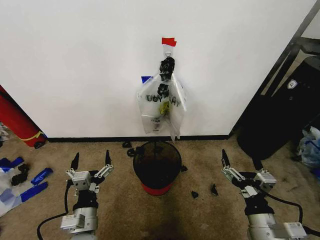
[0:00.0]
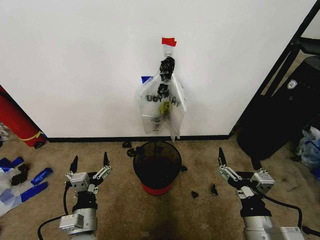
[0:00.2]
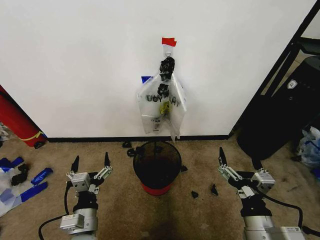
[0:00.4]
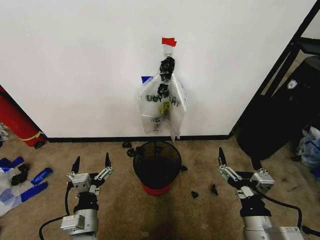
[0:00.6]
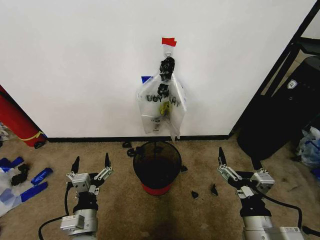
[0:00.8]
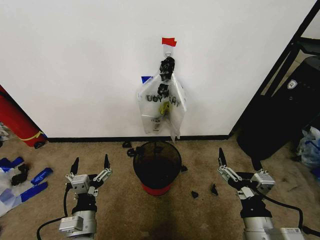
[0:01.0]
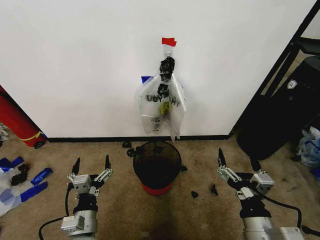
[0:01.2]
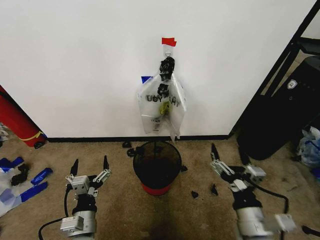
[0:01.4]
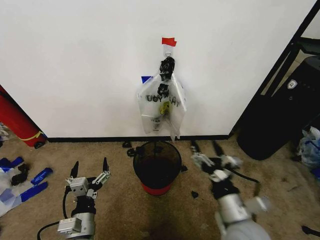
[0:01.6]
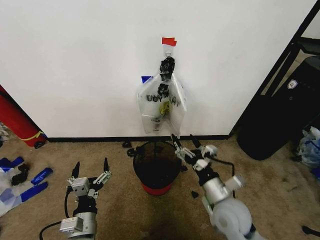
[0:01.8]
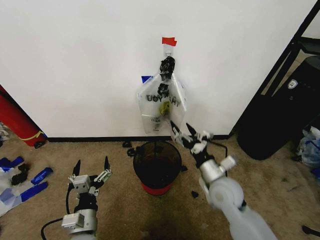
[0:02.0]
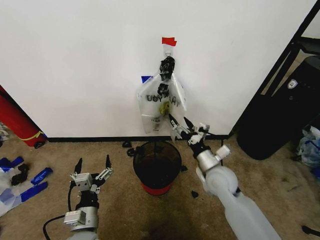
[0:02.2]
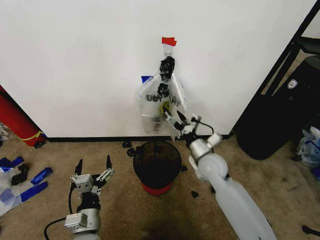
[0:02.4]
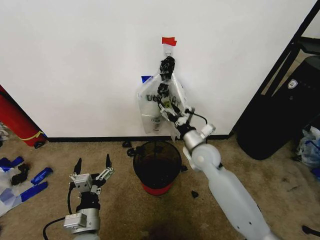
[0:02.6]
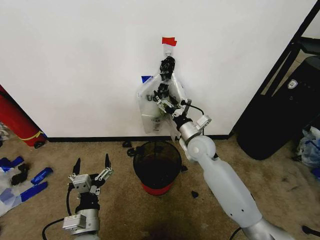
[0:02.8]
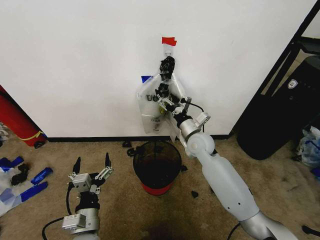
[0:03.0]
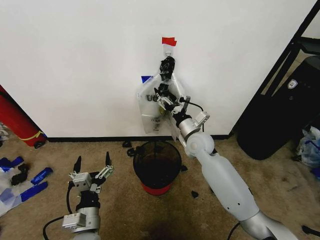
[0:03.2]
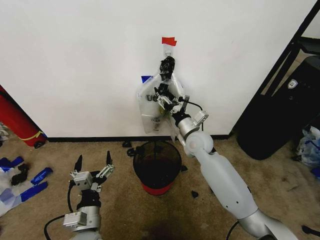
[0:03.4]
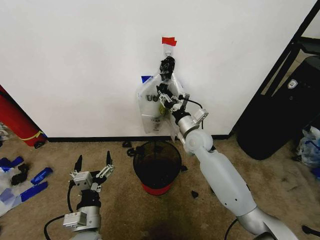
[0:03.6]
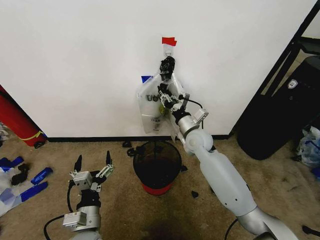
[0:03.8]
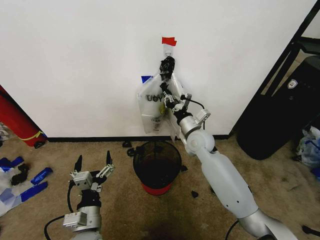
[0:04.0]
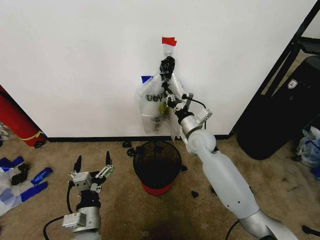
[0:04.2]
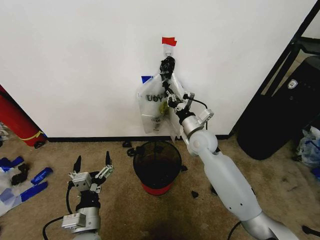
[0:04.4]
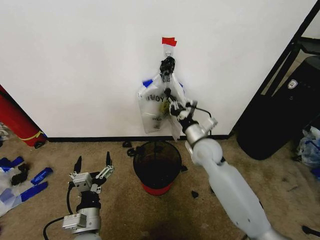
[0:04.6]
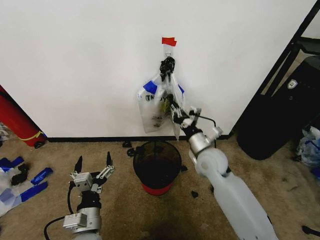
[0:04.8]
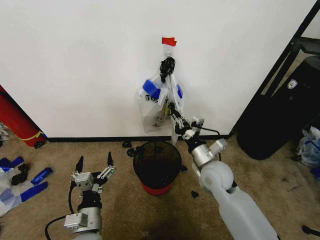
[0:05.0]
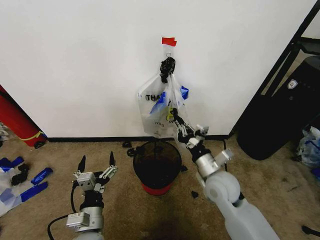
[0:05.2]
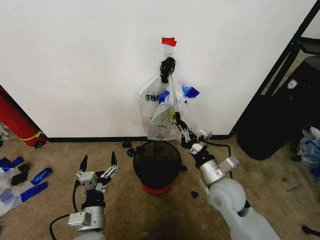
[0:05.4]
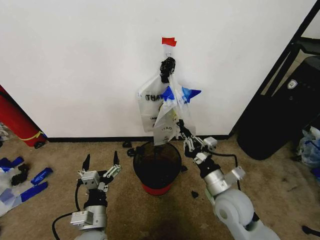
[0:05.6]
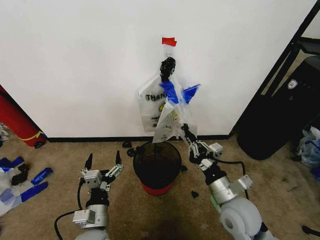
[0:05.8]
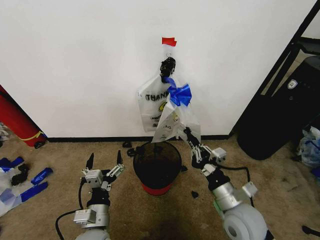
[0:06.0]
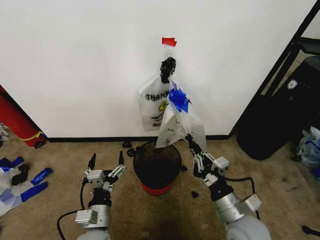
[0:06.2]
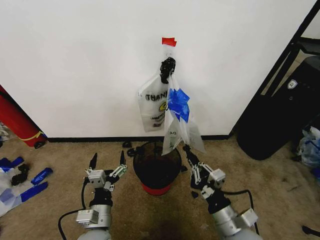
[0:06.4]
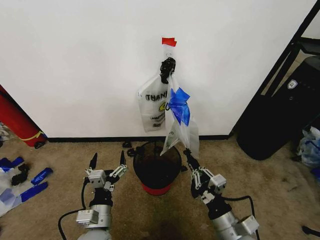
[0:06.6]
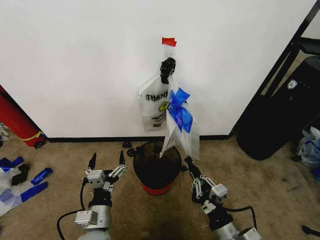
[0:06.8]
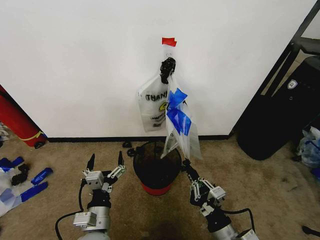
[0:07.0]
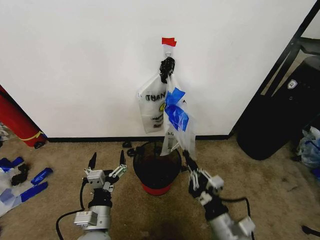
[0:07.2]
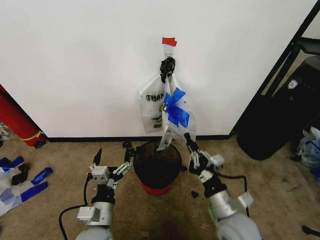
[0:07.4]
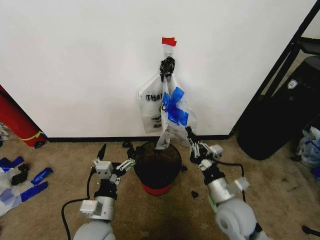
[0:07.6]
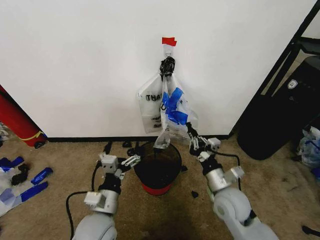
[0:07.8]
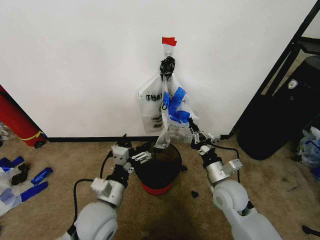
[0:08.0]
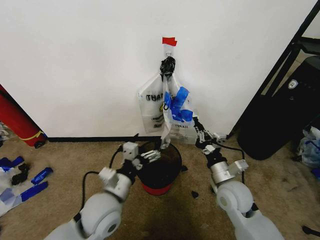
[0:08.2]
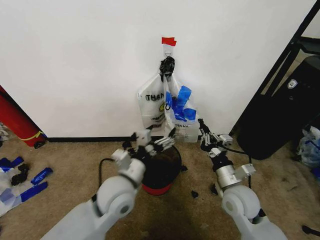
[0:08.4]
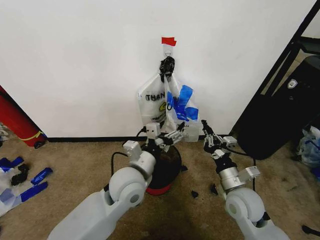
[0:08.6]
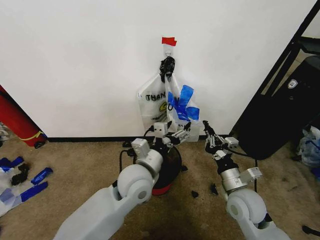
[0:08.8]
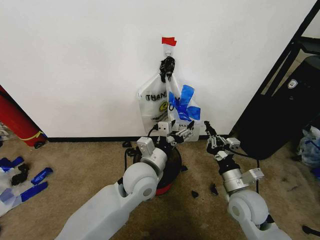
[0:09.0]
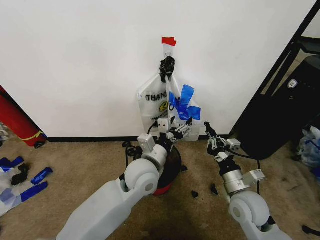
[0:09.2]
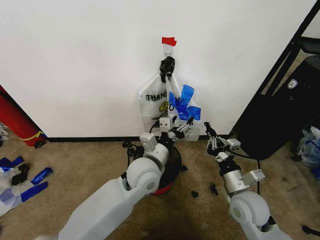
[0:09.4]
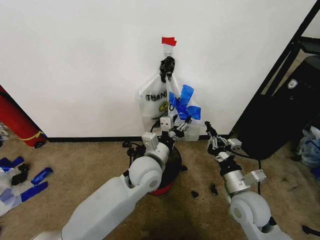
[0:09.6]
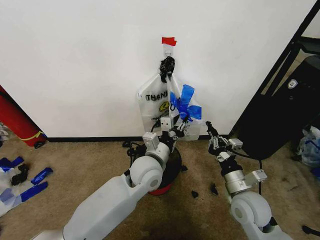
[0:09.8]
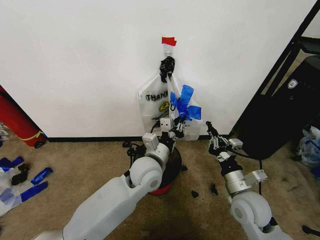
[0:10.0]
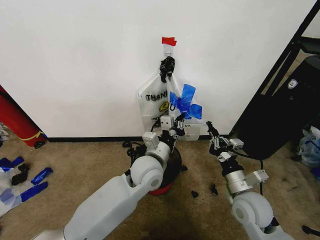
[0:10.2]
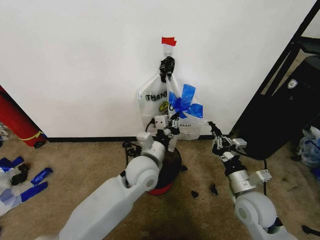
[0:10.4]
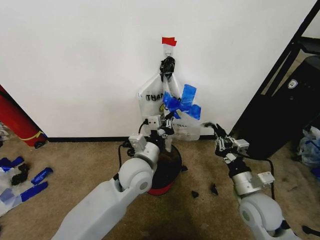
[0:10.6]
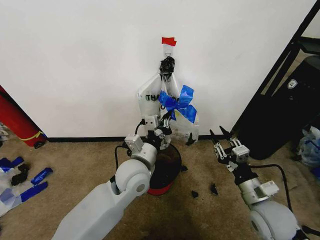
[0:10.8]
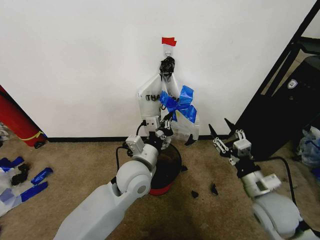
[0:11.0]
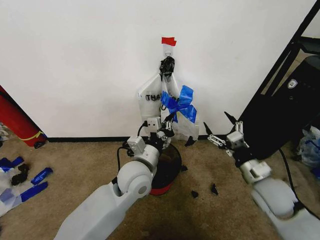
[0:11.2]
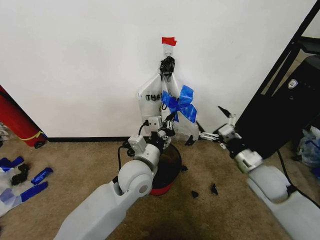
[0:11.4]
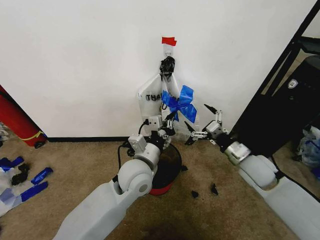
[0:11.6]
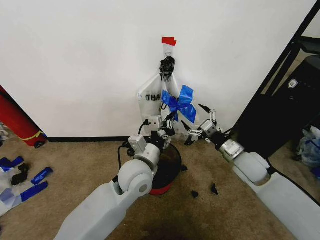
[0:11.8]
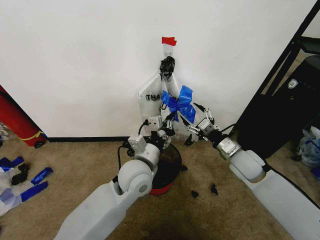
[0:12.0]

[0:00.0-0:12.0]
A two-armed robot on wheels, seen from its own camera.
Task of the whole recording: Pick up the garbage bag from the wall and place it over the trash bin.
0:01.6 to 0:03.0: The right gripper goes about 30 cm forward.
0:03.0 to 0:04.4: The right gripper closes.
0:04.4 to 0:06.0: The right gripper is displaced backward by roughly 25 cm.
0:06.0 to 0:07.6: The right gripper reaches approximately 10 cm backward, then returns.
0:07.6 to 0:09.0: The left gripper heads forward, to the right and upward, covering roughly 20 cm, while the right gripper moves roughly 5 cm.
0:09.0 to 0:10.4: The left gripper closes its fingers.
0:10.4 to 0:12.0: The right gripper is displaced forward by some 15 cm, and opens.

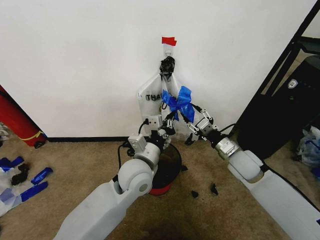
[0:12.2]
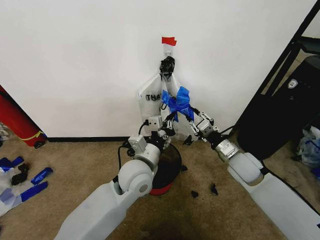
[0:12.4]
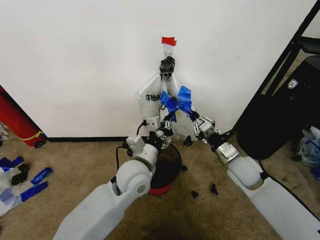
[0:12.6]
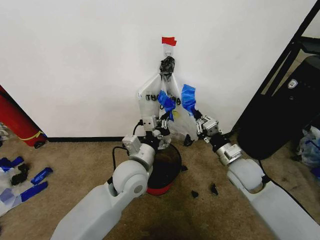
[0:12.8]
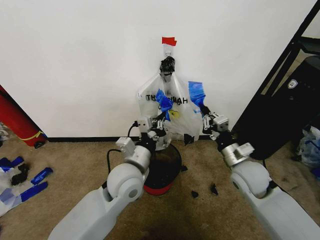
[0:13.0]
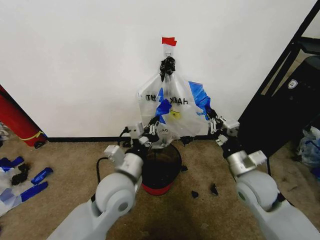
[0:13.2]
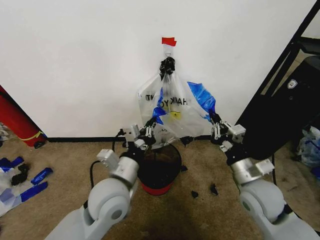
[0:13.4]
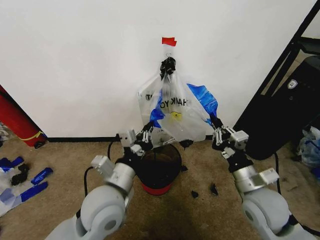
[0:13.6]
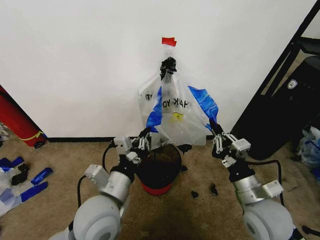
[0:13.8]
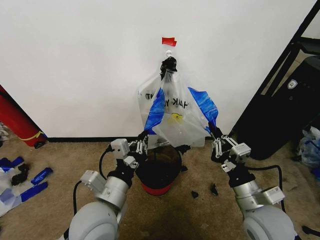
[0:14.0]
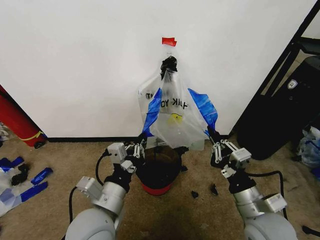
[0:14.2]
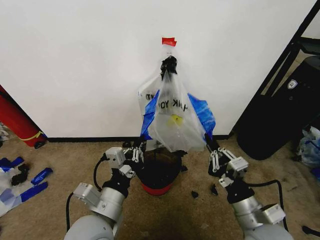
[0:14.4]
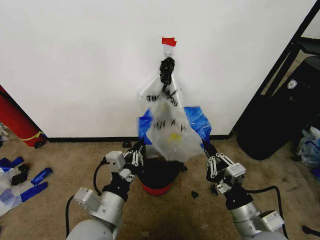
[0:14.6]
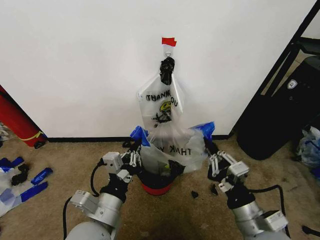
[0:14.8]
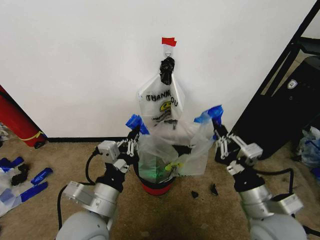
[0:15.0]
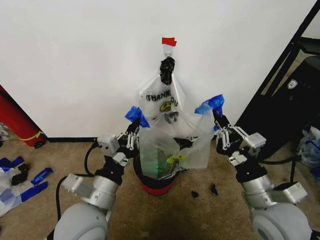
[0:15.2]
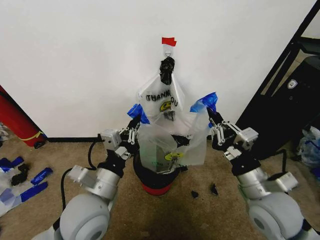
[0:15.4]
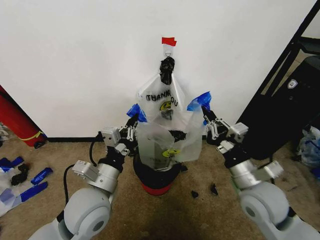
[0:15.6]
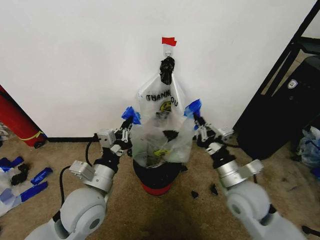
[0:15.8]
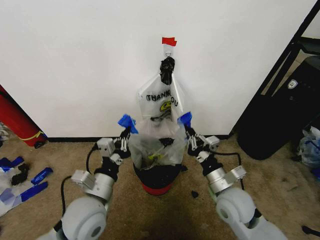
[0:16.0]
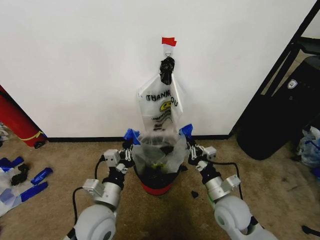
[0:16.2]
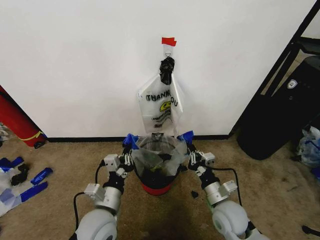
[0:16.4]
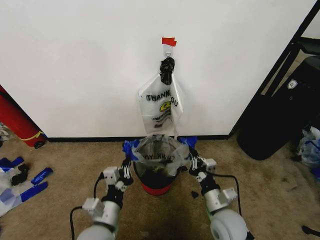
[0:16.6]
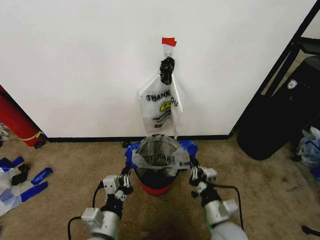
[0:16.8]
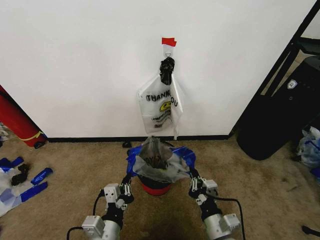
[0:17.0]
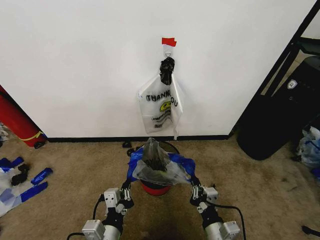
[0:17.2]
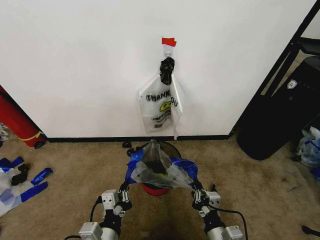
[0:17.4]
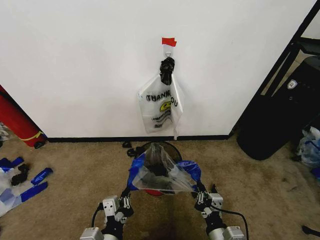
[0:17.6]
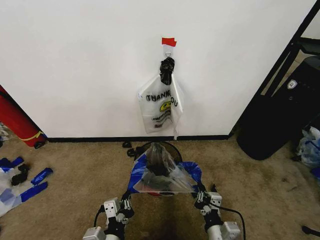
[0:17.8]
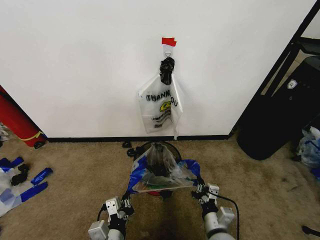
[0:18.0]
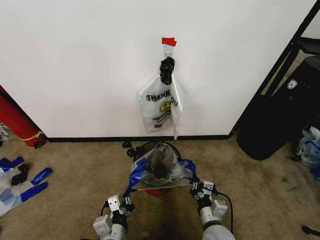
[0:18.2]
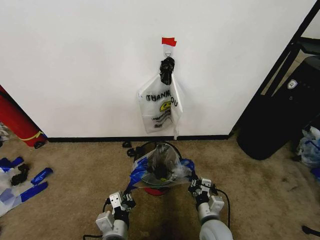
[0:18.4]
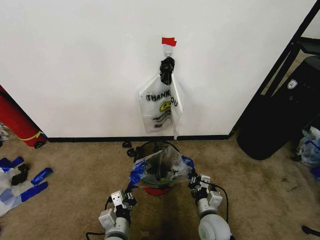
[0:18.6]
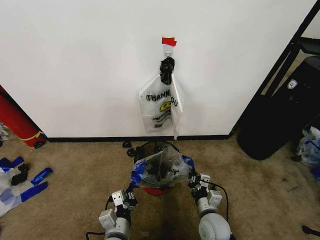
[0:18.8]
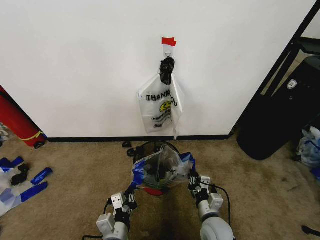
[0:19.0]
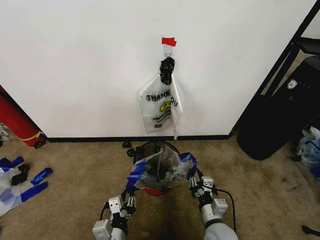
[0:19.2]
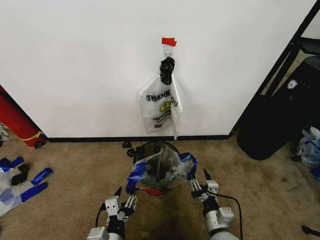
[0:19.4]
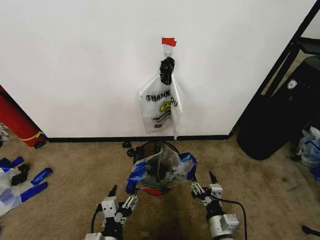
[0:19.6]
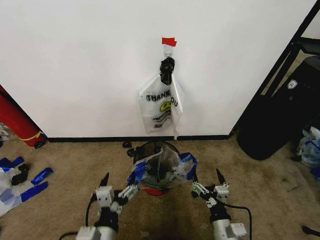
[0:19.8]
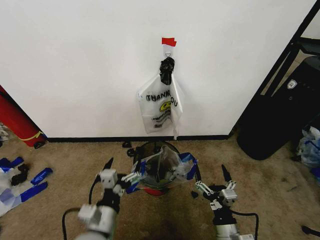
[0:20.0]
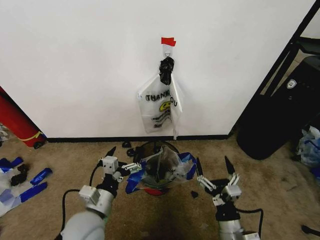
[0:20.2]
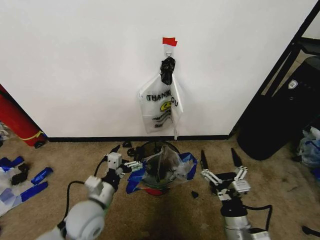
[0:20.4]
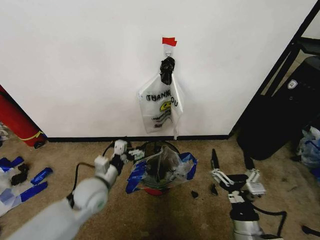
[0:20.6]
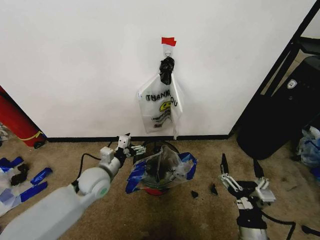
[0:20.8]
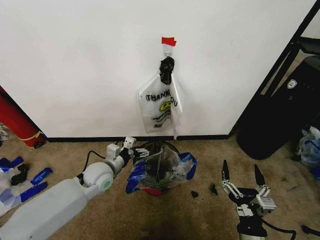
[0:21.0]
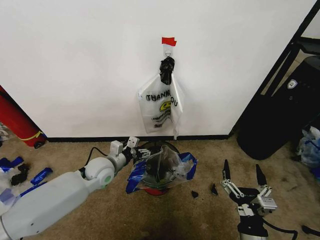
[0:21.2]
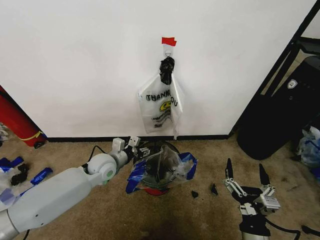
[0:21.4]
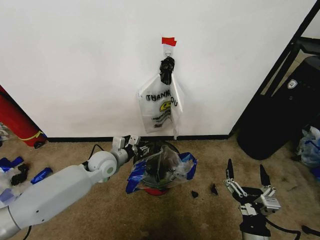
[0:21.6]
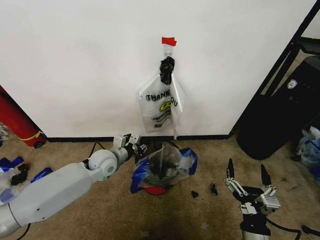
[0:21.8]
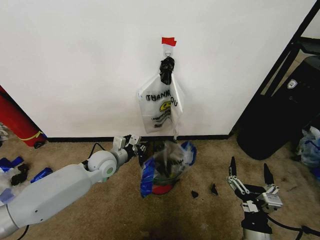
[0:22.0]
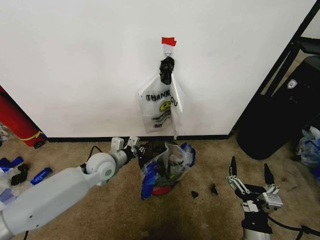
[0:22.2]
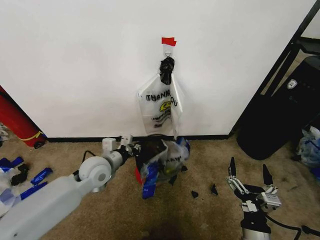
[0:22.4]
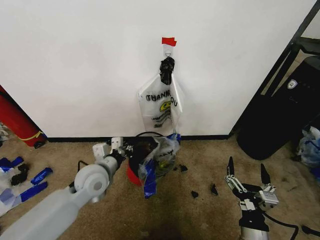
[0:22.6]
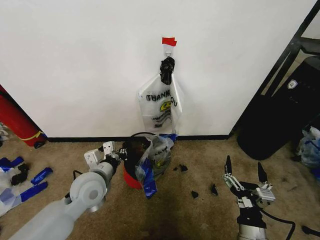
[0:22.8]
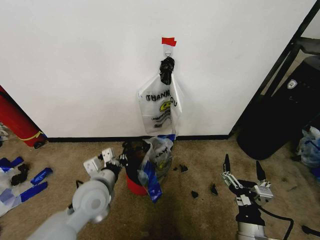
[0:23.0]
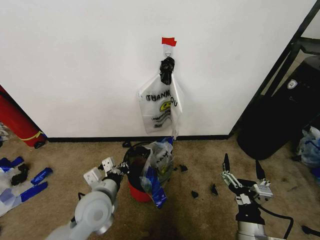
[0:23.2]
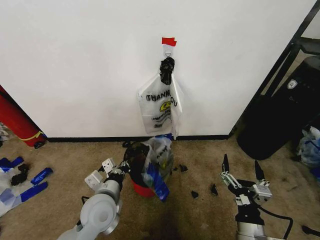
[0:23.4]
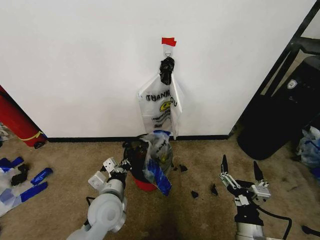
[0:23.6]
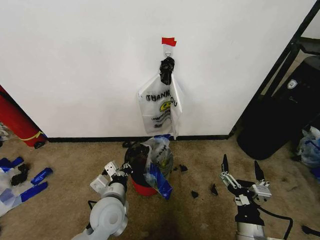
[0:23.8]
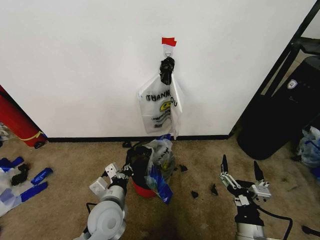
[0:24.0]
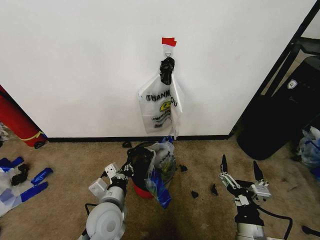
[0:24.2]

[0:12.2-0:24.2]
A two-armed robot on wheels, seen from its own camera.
Task of the whole recording: Pick up the garbage bag from the wall and place it over the trash bin.
0:12.2 to 0:13.8: The right gripper heads backward, covering roughly 15 cm, and closes up. The left gripper is displaced backward and to the left by about 15 cm.
0:15.2 to 0:16.6: The grippers both shift downward by roughly 15 cm.
0:16.6 to 0:18.2: Both grippers travel together downward, about 5 cm. The right gripper travels backward and back again, some 10 cm each way.
0:18.2 to 0:19.8: The left gripper shifts some 5 cm upward, and opens its fingers; the right gripper shifts by approximately 5 cm, and opens up.
0:19.8 to 0:21.2: The right gripper shifts approximately 5 cm upward, while the left gripper heads forward, covering about 30 cm.
0:21.2 to 0:22.6: The left gripper travels backward by approximately 5 cm, and closes its fingers.
0:22.6 to 0:24.2: The left gripper shifts roughly 10 cm backward and to the right.
